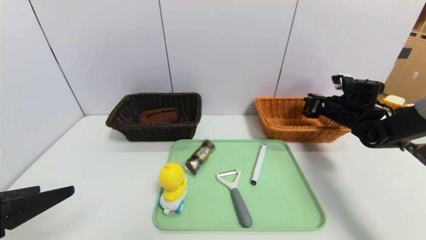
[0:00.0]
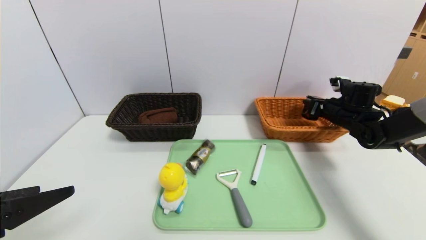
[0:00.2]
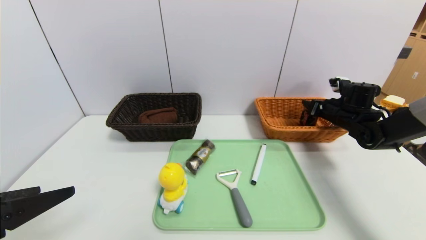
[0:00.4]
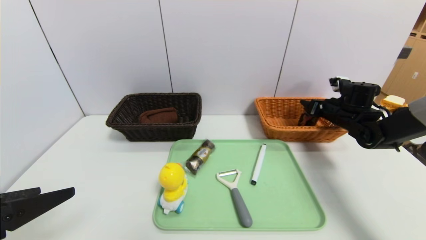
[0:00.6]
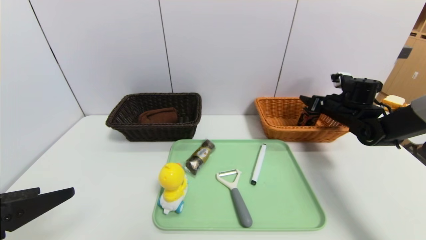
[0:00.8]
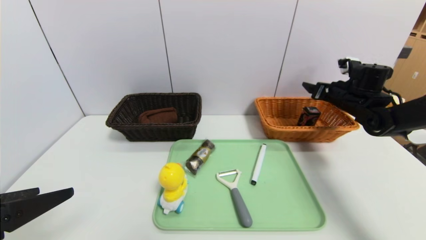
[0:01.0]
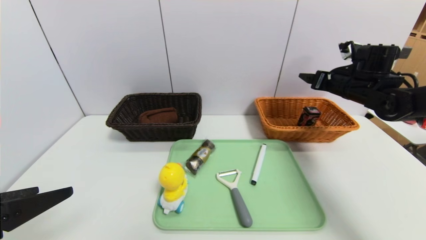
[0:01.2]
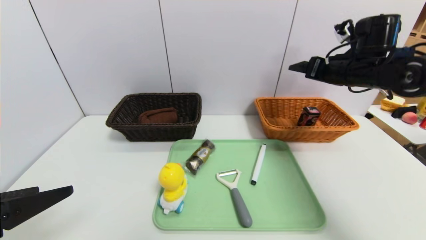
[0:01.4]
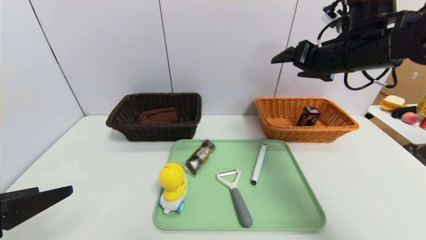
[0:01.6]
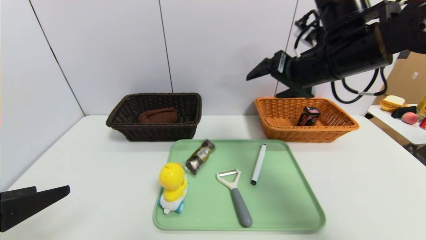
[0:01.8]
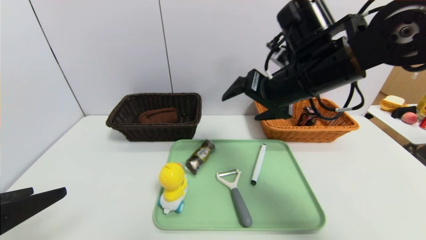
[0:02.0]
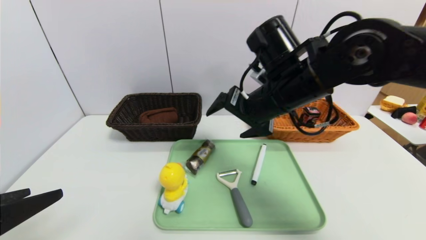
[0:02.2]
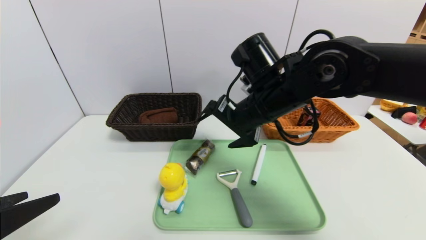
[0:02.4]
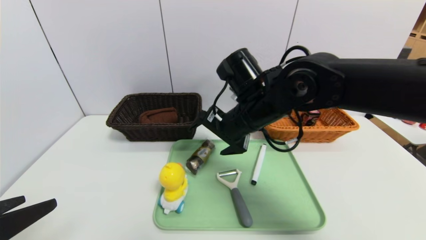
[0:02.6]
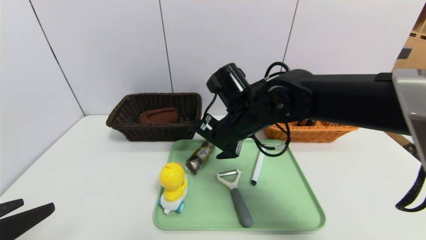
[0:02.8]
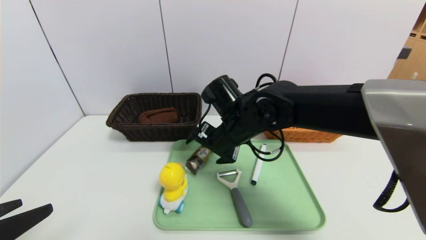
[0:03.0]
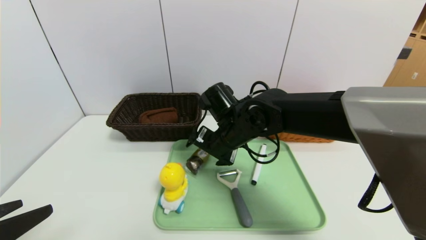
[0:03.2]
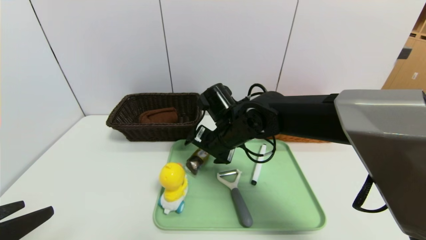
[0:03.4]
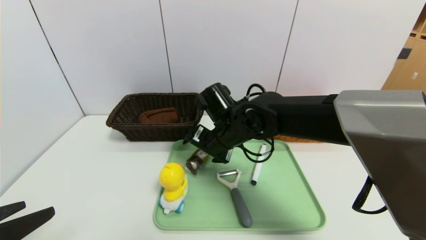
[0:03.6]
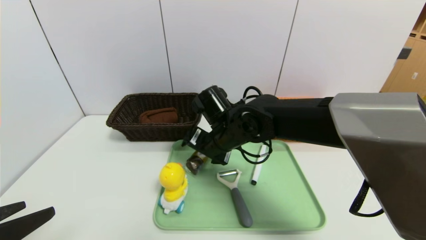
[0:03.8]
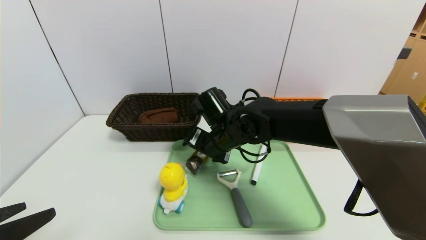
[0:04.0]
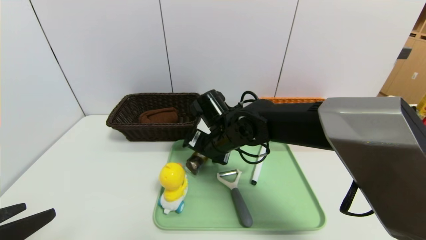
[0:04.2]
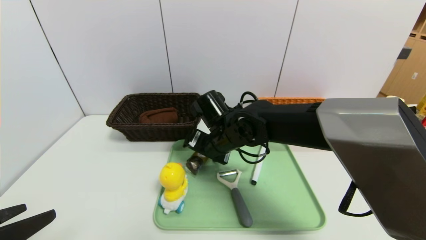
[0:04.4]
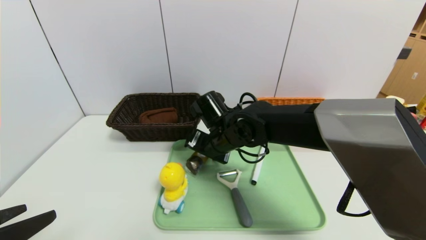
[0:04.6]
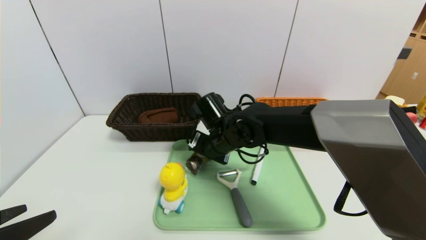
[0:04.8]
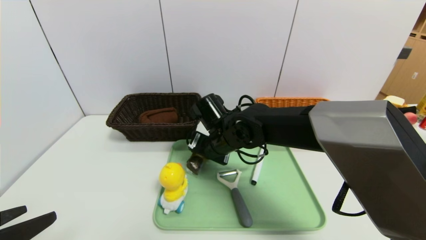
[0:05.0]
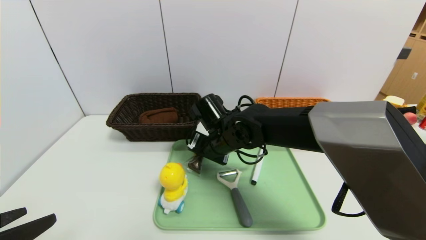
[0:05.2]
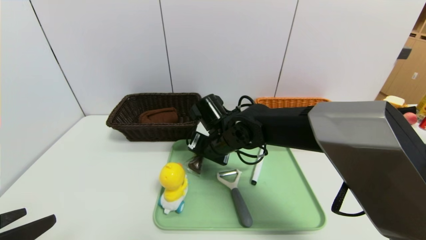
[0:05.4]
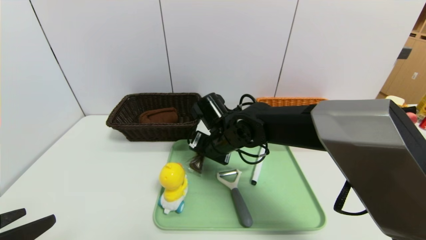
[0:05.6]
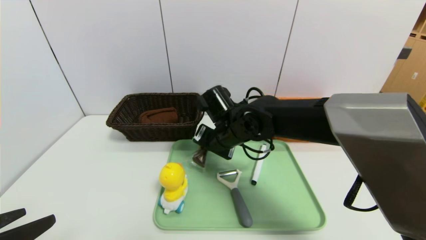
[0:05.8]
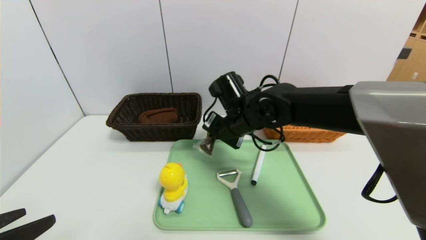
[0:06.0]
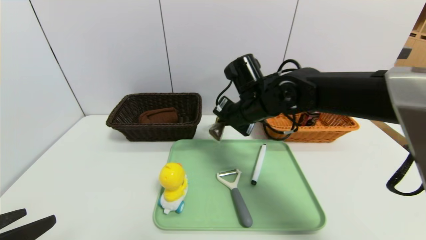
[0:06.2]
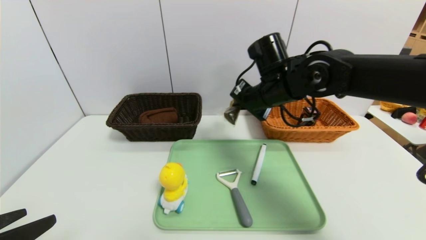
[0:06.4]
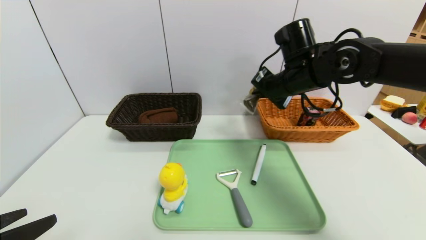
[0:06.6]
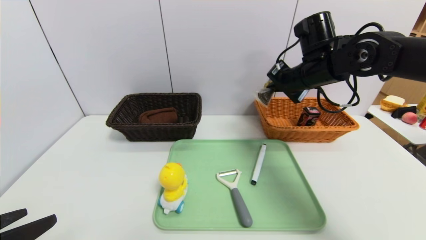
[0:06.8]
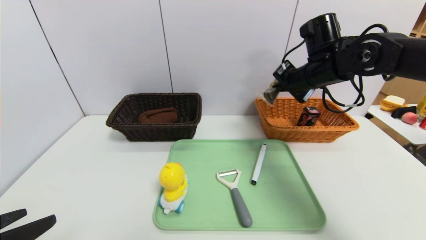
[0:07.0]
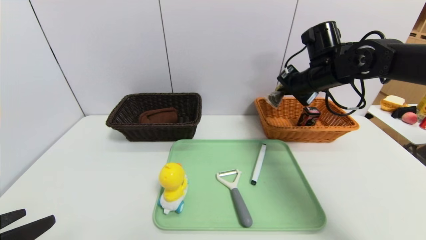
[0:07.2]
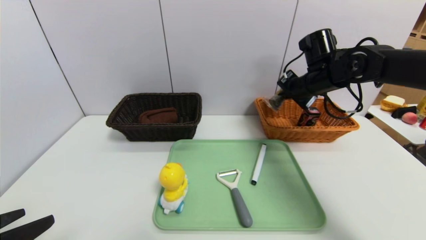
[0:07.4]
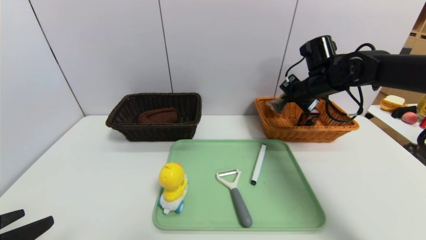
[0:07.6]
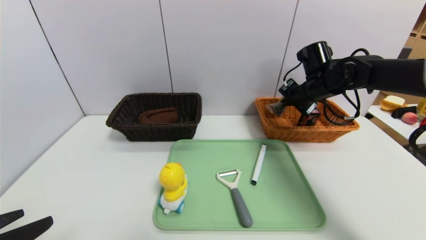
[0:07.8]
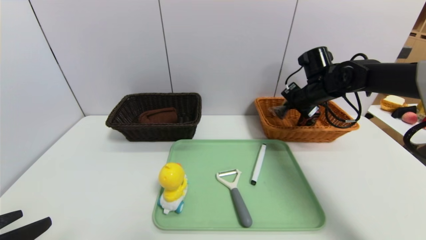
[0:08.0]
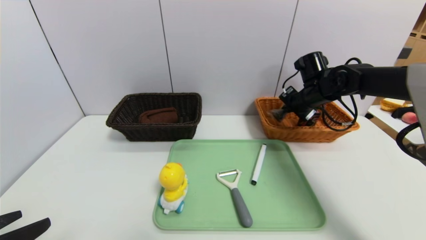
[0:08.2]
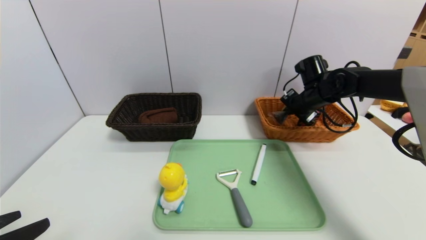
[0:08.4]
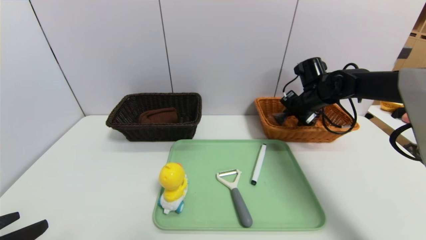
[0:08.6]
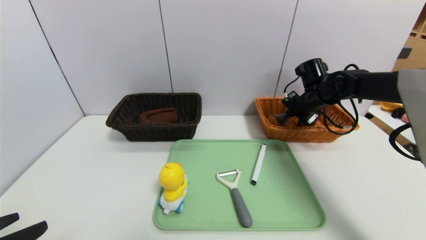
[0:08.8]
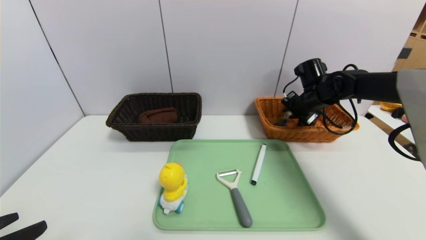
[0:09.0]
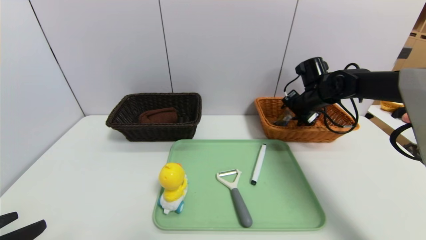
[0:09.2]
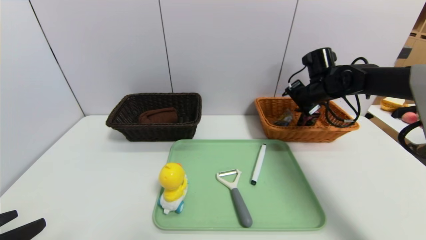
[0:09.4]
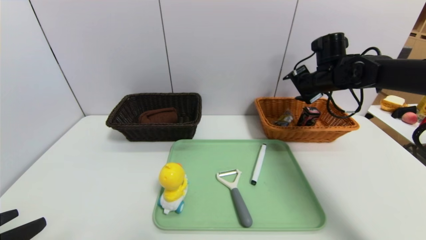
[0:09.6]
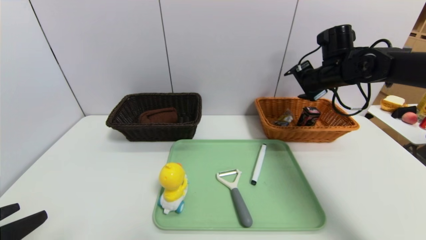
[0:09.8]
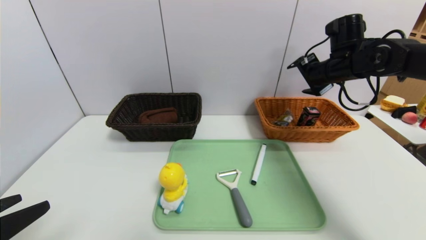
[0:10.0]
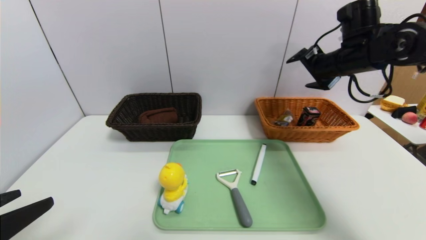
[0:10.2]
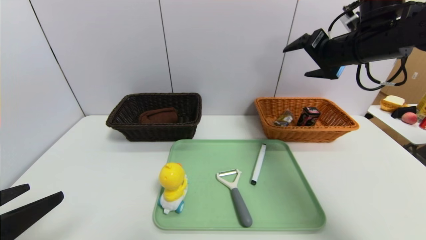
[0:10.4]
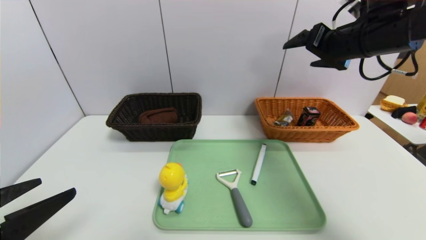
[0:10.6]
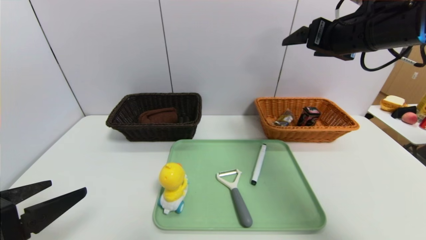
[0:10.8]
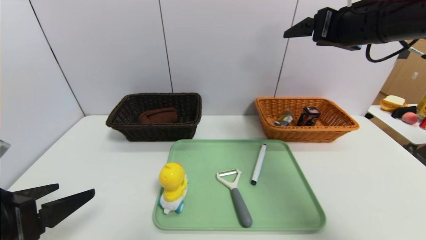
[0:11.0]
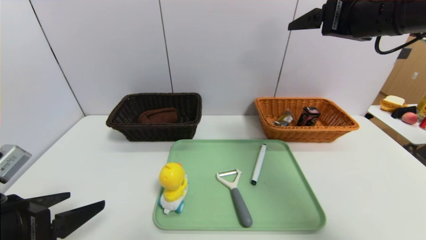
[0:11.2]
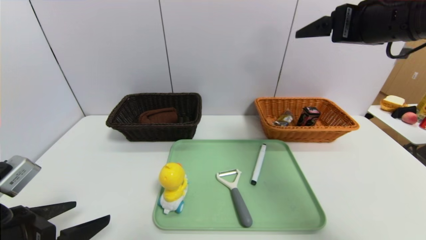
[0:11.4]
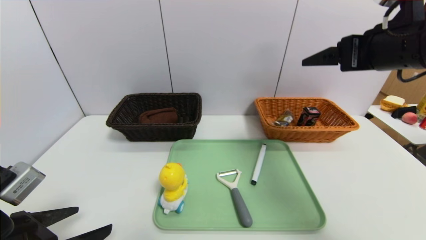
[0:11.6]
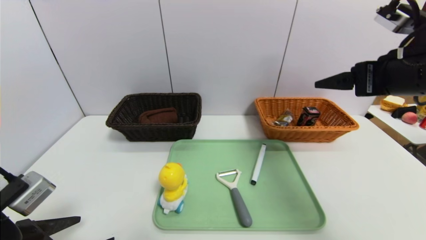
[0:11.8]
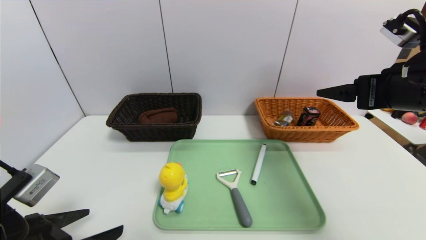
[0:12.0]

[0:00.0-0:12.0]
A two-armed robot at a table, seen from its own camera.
Task of the whole recording: place the food in the right basket with the right gripper, and place the non food items in the left basket with the left gripper.
Step, 0:02.0 to 0:10.4: Grasp the chocolate and put it in the right basket.
0:00.0 to 0:01.6: The right gripper goes some 25 cm upward, to the left and backward, and opens up.
0:01.6 to 0:03.0: The right gripper heads to the left and downward, covering about 25 cm.
0:03.0 to 0:04.4: The grippers make only small movements.
0:04.4 to 0:06.0: The right gripper ends up about 5 cm from where it was, and closes its fingers.
0:06.0 to 0:07.6: The right gripper heads to the right, covering some 20 cm.
0:07.6 to 0:09.0: The right gripper goes some 5 cm downward.
0:09.0 to 0:10.4: The right gripper is displaced upward and backward by roughly 20 cm, and opens up.
0:10.4 to 0:12.0: The right gripper travels backward by roughly 15 cm, while the left gripper travels downward by roughly 5 cm.

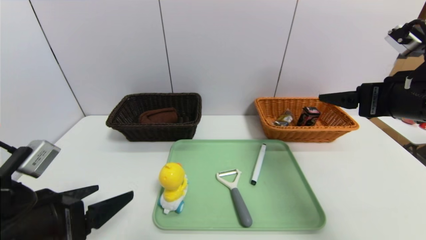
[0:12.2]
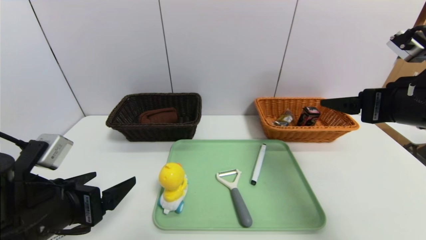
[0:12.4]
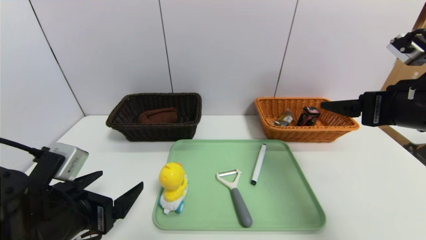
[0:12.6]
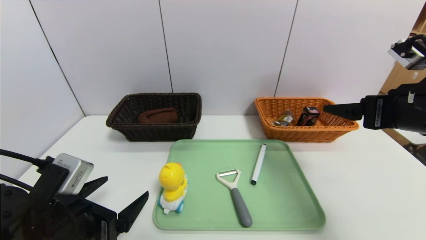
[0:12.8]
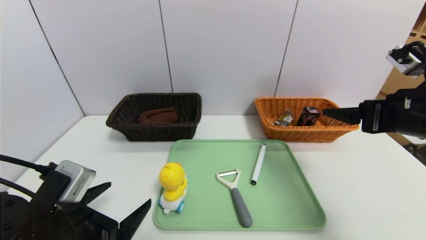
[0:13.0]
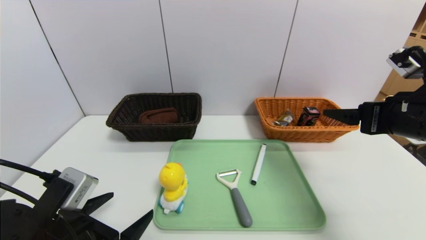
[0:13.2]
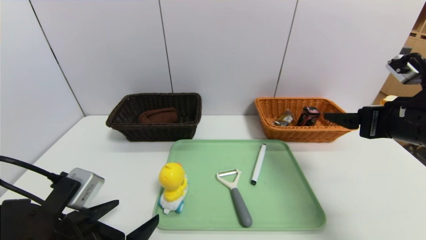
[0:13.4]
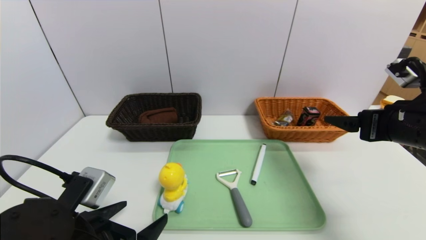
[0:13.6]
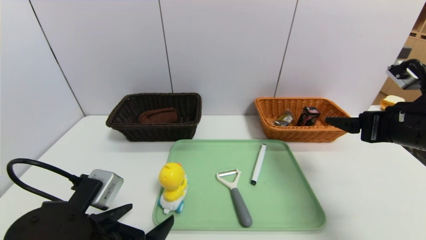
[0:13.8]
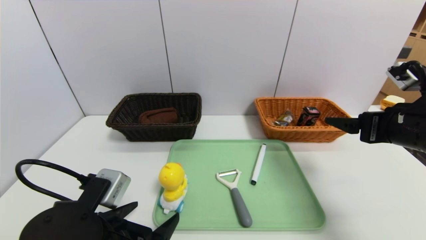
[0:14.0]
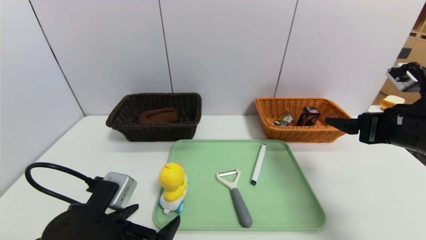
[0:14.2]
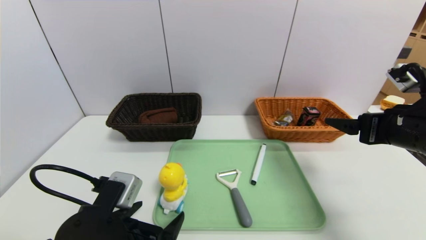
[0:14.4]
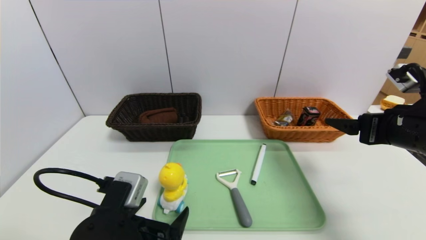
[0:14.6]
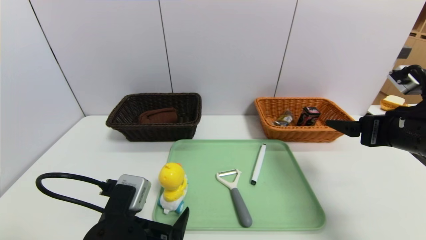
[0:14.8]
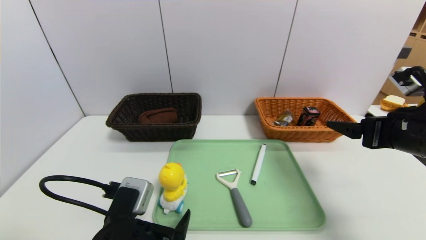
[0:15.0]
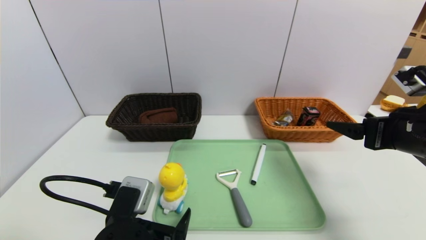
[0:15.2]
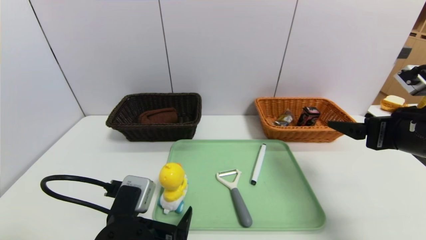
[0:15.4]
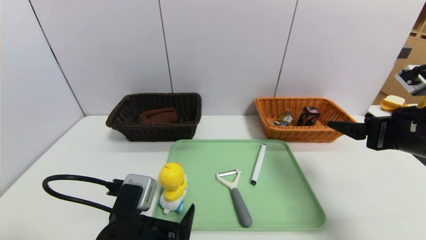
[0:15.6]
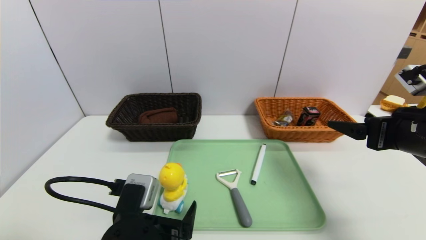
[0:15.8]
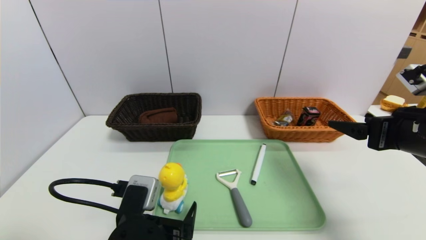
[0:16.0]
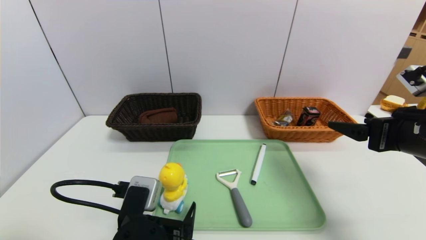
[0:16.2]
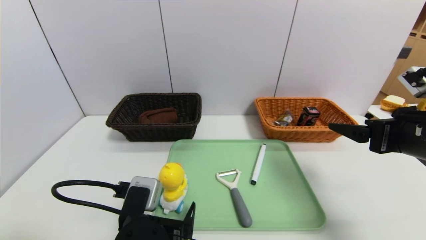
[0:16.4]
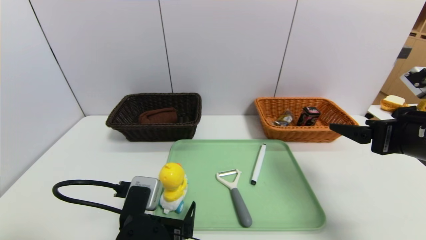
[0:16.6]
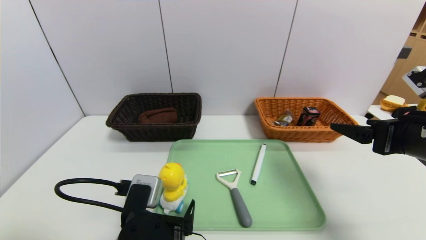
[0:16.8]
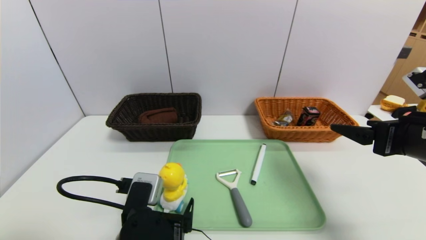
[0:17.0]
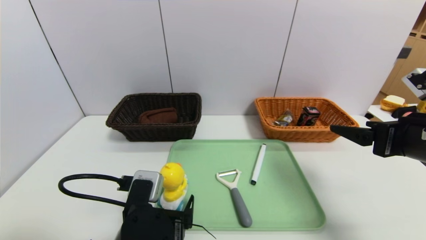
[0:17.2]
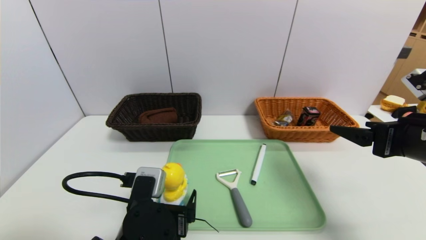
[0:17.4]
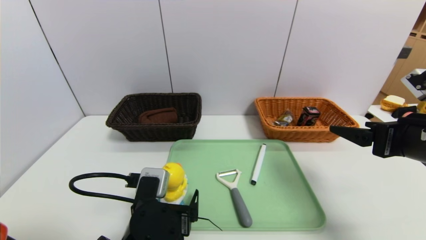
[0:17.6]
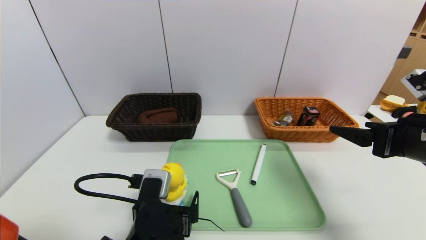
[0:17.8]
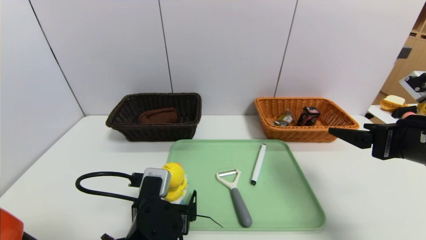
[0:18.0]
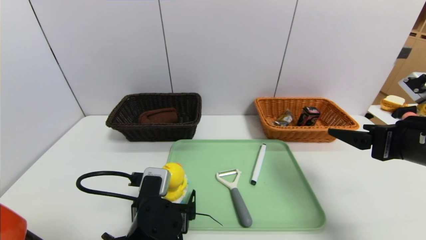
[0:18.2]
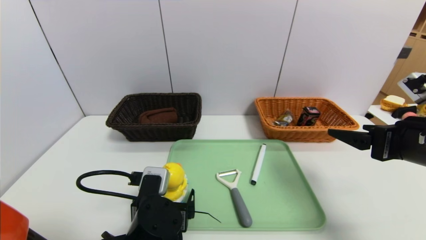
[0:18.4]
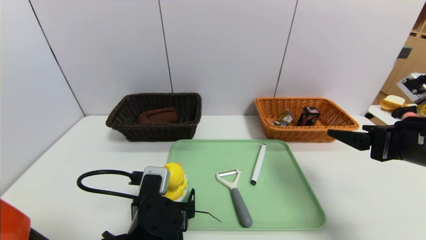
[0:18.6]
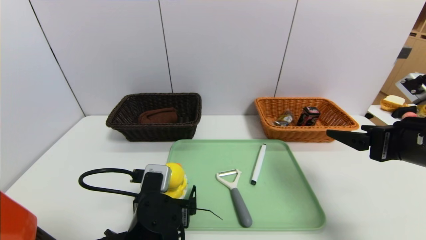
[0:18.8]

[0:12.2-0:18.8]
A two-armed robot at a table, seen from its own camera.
Task of the whole recording: place the food in the right basket with the right gripper, and place the non food items in the left basket with the left gripper.
0:12.2 to 0:13.8: The right gripper shifts by approximately 5 cm, while the left gripper travels to the right by approximately 5 cm.
0:13.8 to 0:15.4: The left gripper shifts by approximately 5 cm.
0:15.4 to 0:18.8: The grippers stay close to where they were, moving slightly.
